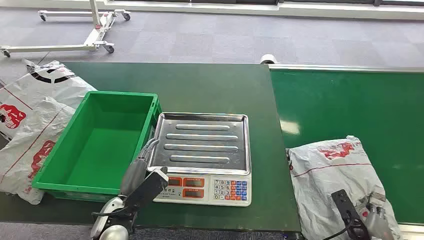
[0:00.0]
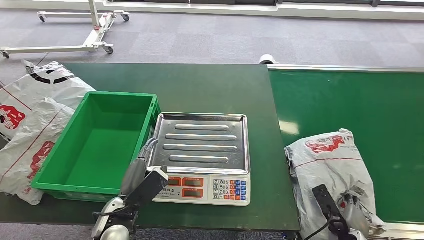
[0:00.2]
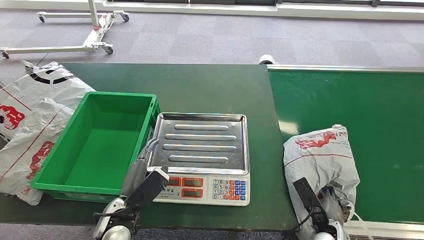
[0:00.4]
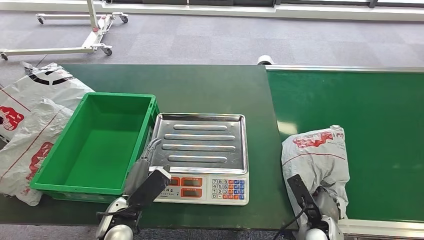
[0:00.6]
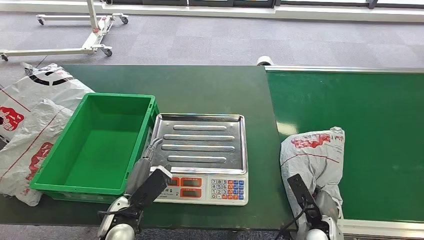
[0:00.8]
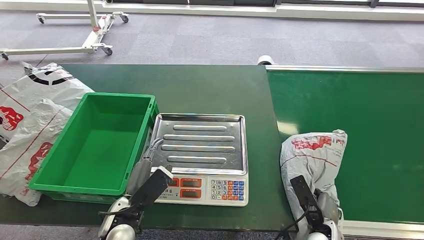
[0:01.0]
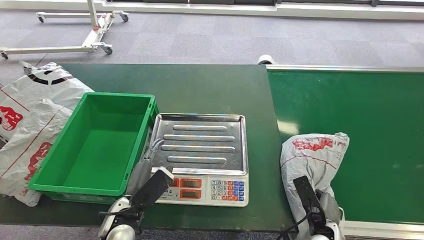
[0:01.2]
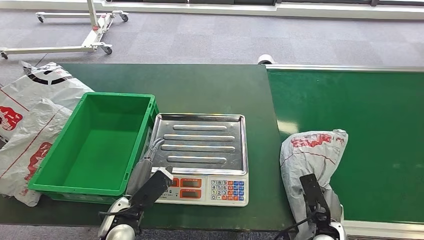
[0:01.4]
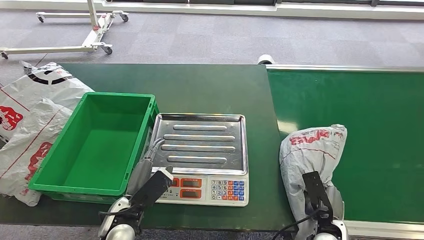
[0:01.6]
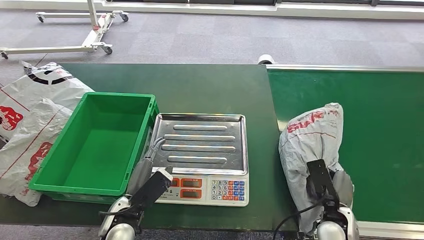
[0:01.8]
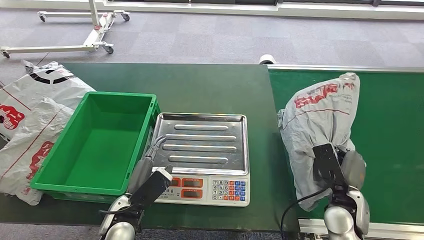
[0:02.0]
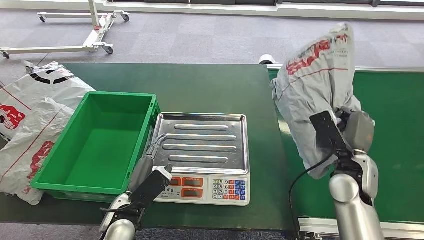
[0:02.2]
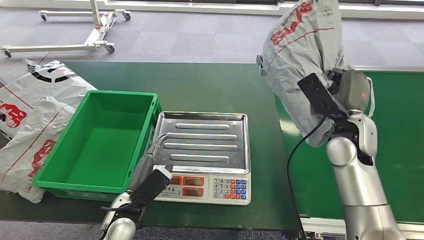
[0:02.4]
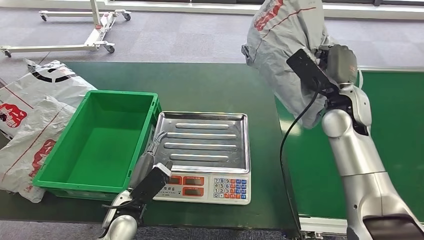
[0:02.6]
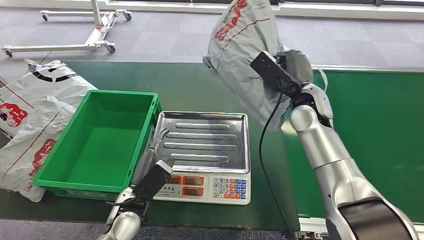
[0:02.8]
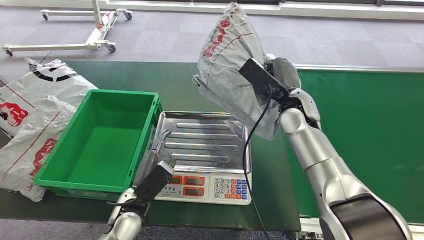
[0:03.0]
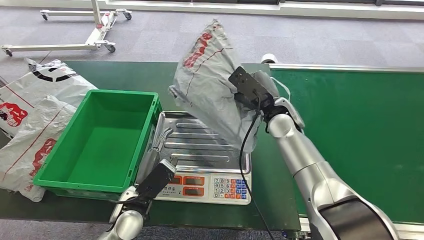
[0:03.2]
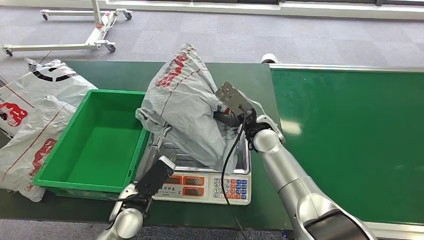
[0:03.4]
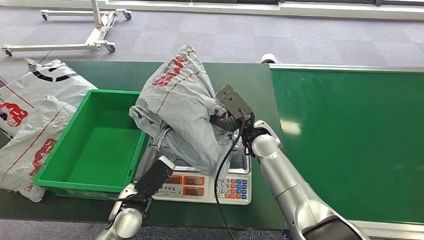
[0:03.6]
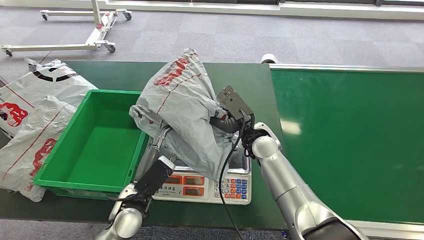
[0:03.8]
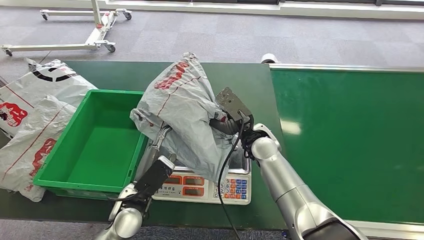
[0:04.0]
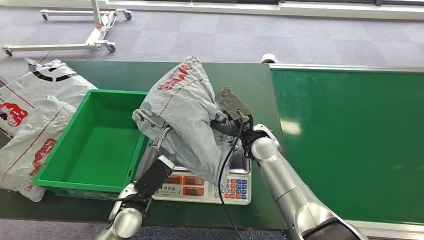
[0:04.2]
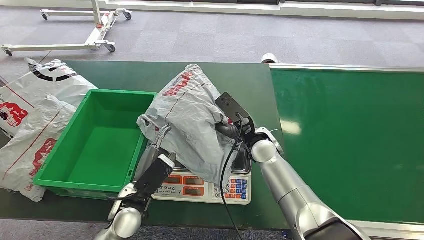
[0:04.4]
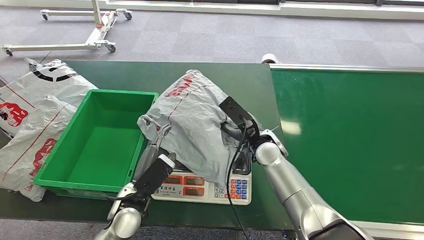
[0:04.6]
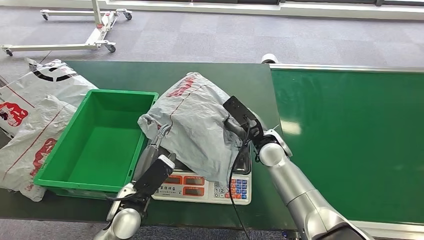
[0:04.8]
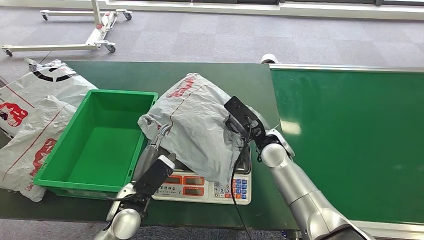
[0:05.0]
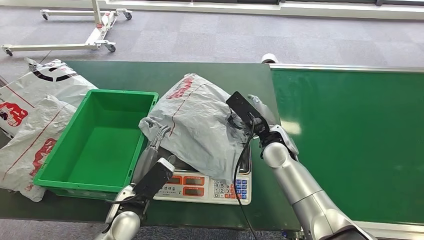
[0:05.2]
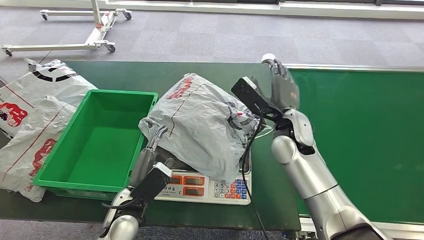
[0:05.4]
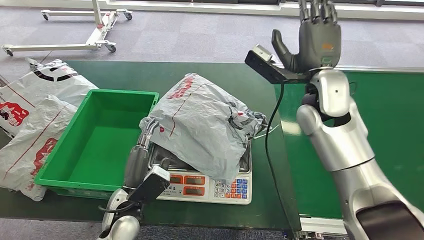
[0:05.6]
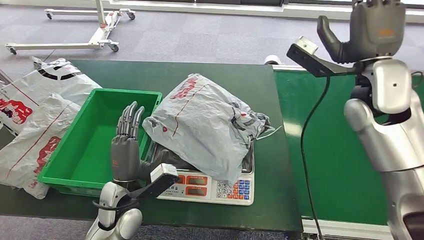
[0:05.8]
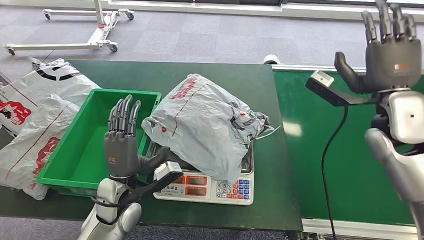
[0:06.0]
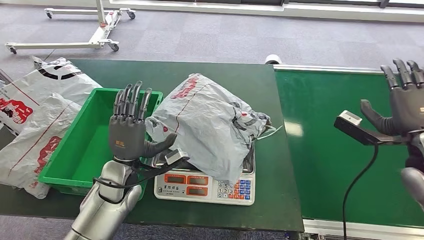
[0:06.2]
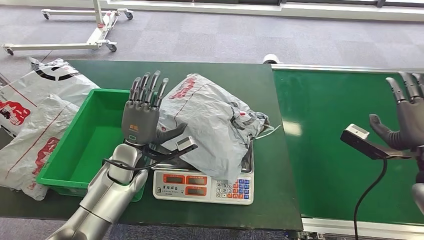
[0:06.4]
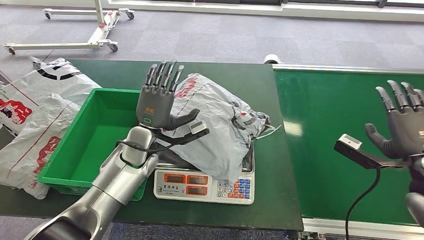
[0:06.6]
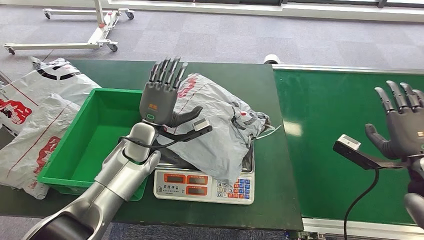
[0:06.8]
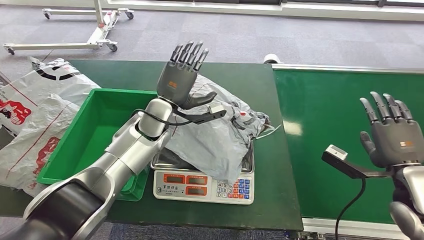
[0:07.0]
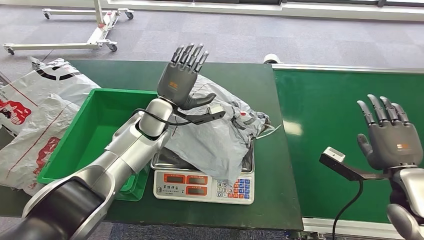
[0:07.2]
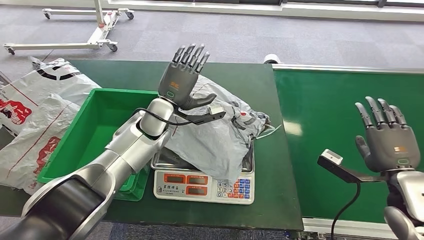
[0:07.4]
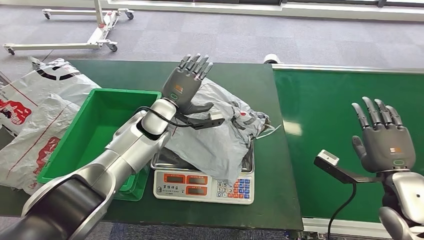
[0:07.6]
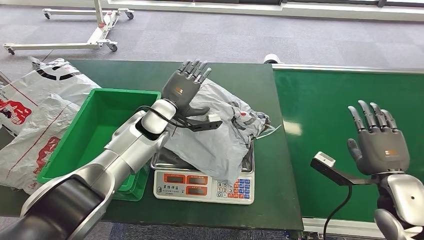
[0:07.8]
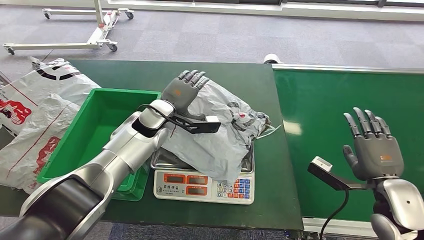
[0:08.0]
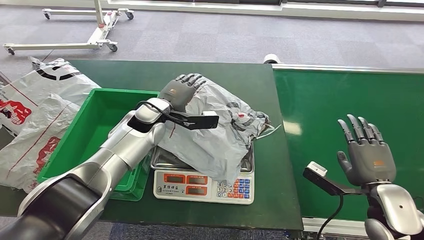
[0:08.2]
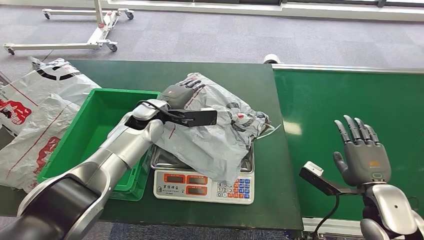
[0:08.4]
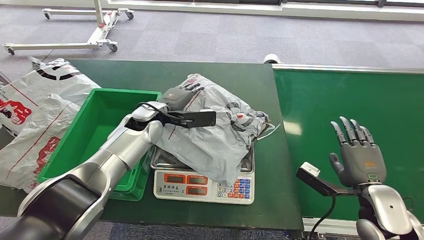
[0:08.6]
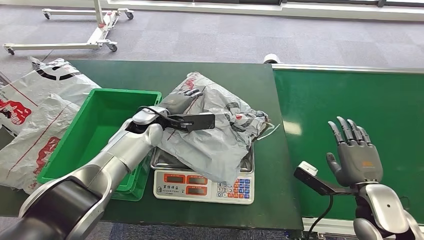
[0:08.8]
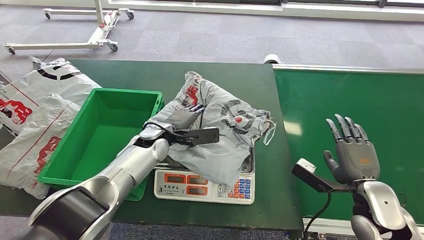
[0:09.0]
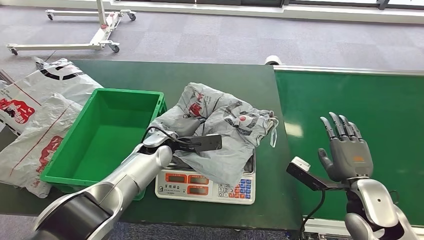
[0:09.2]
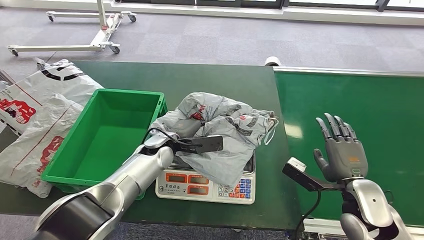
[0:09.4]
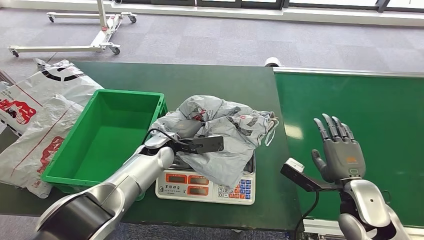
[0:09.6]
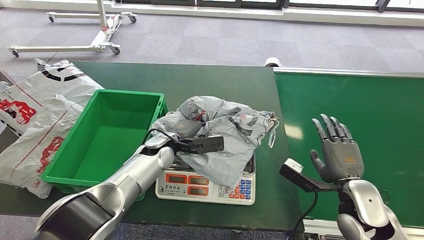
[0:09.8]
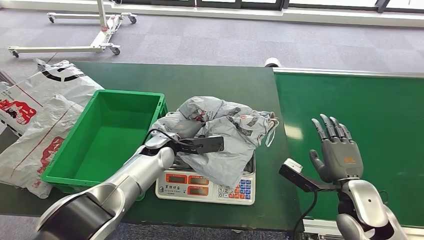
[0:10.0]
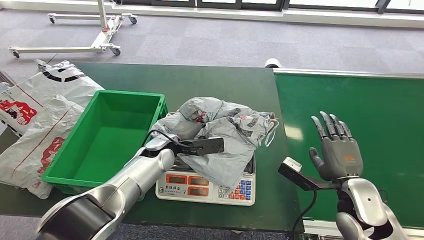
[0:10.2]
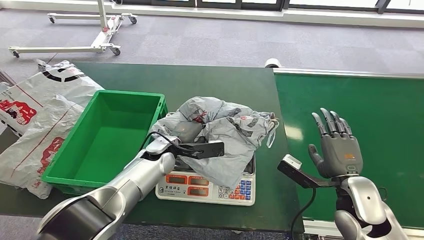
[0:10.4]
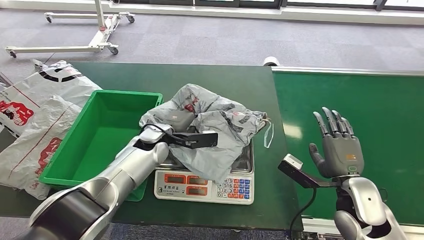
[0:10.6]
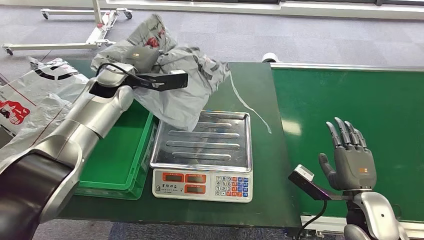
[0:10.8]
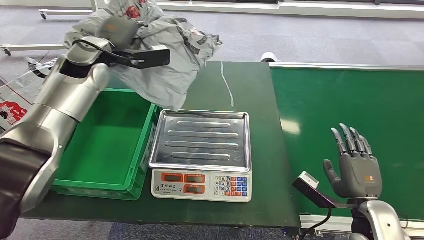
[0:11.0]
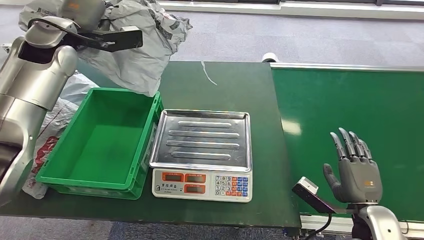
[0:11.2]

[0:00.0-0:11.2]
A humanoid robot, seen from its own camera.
Task of the whole recording: Weigh the package on the weighing device and place it in the left basket.
Step, 0:00.0 to 0:02.4: Pick up the package from the conveyor belt.
Step, 0:02.6 to 0:06.0: Place the package onto the inbound machine.

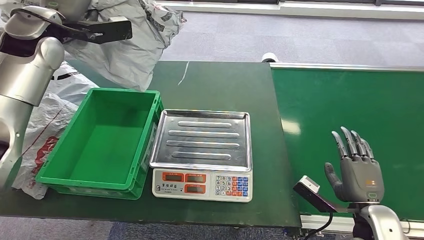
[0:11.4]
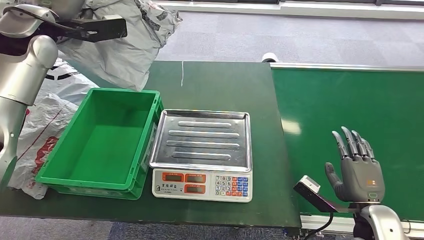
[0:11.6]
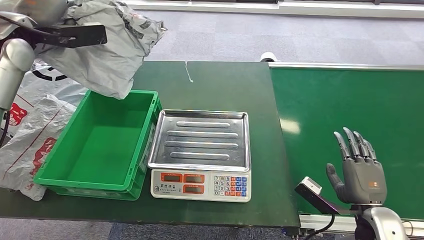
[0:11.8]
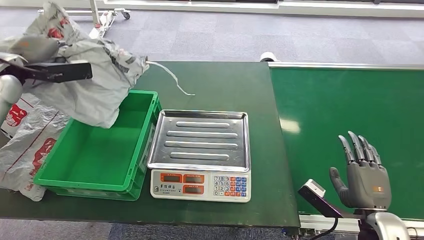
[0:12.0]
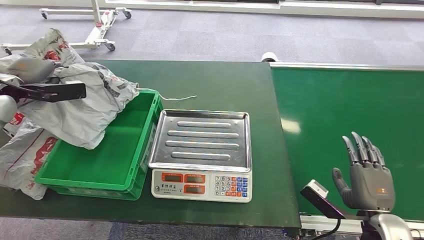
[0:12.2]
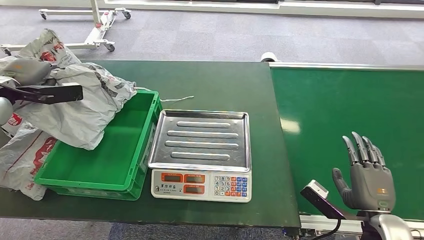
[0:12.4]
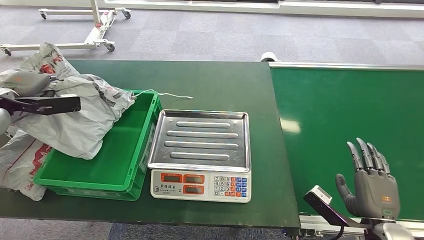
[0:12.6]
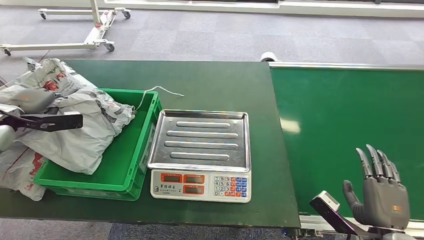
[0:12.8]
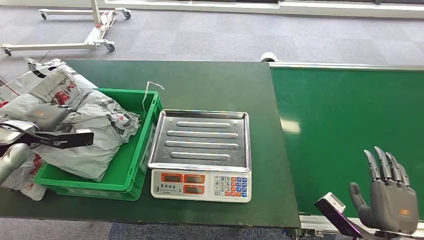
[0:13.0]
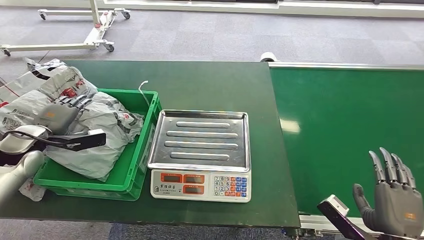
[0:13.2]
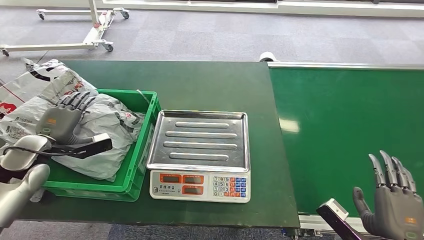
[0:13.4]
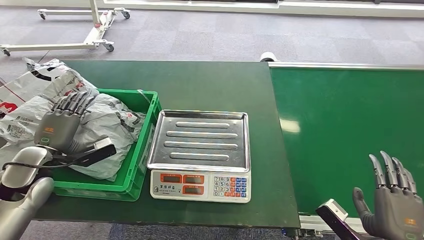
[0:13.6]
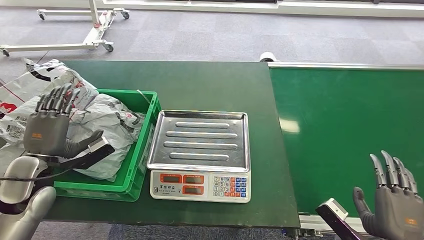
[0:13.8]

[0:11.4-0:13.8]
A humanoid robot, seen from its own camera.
Task of the whole recording: Weigh the package on the weighing device and place it in the left basket.
Step, 0:11.6 to 0:13.8: Place the package into the parcel locker.
